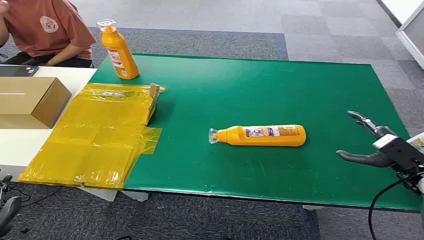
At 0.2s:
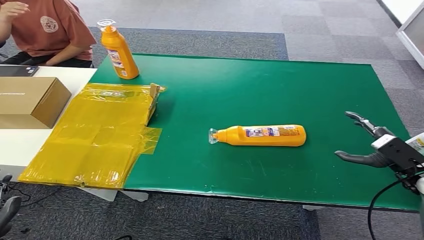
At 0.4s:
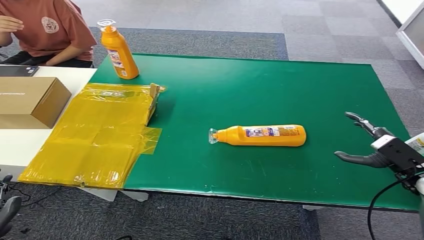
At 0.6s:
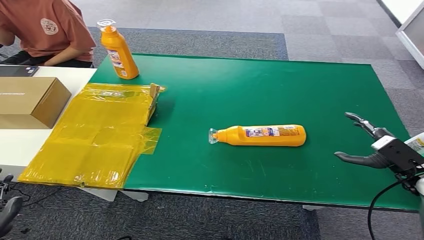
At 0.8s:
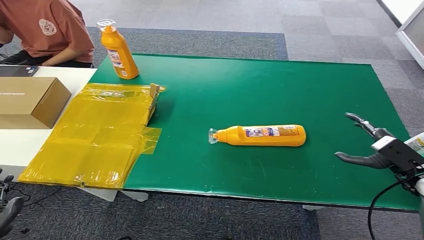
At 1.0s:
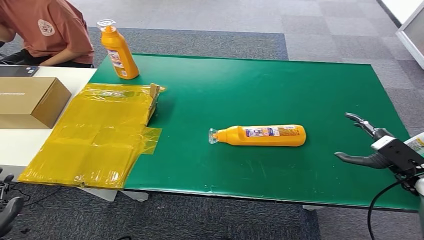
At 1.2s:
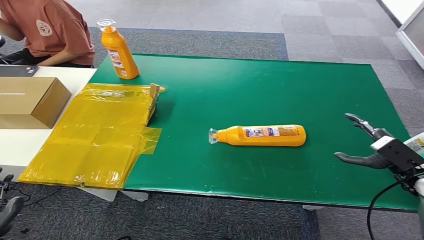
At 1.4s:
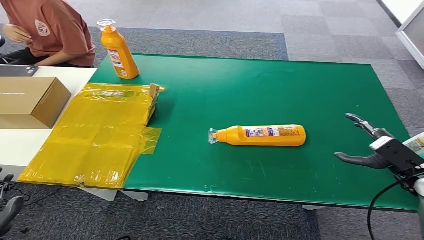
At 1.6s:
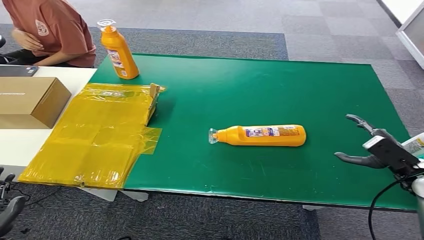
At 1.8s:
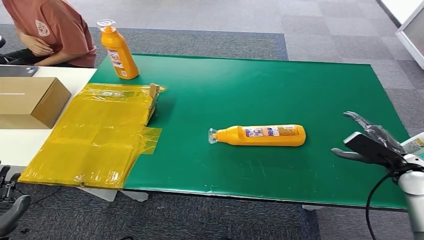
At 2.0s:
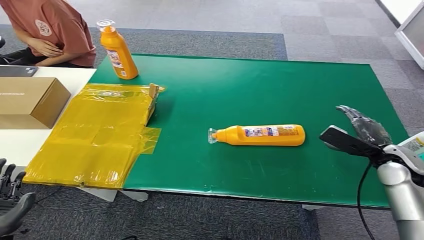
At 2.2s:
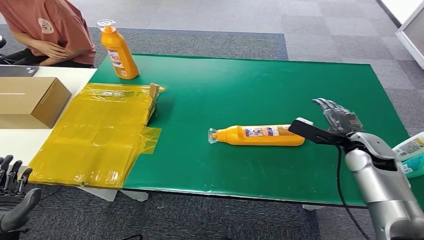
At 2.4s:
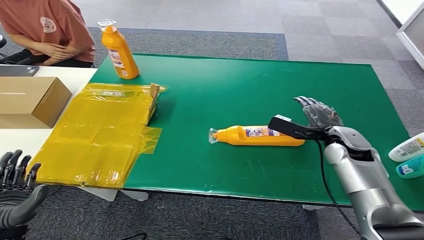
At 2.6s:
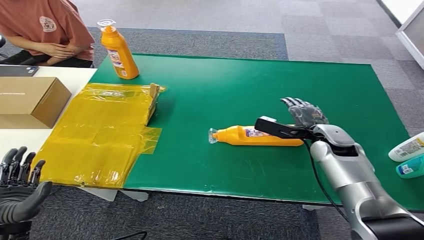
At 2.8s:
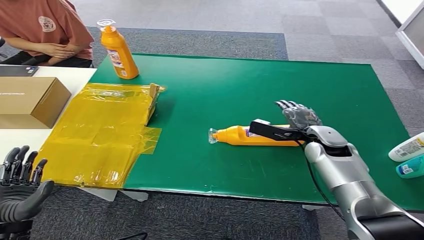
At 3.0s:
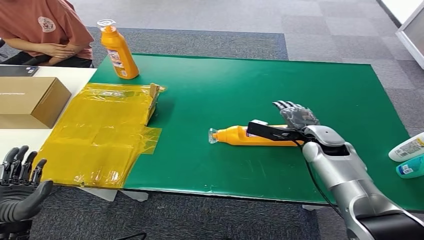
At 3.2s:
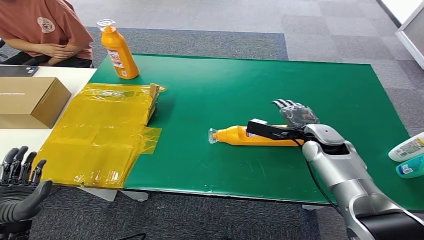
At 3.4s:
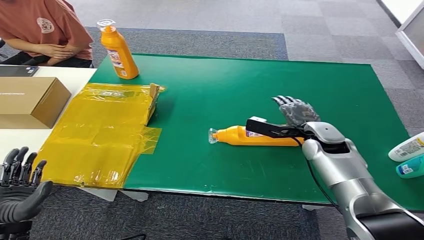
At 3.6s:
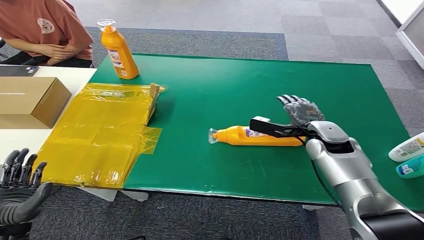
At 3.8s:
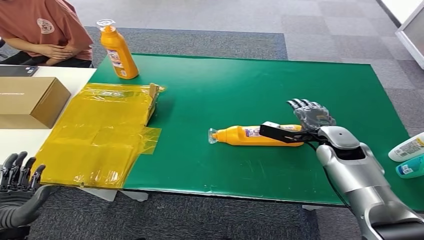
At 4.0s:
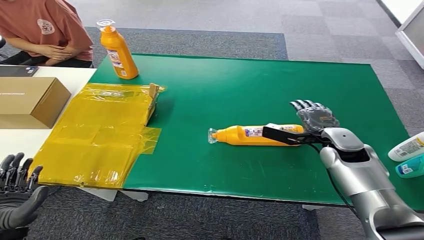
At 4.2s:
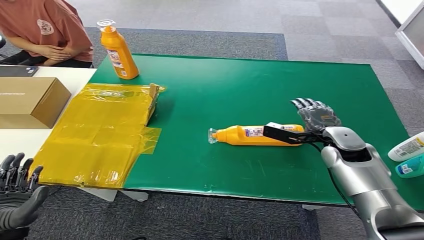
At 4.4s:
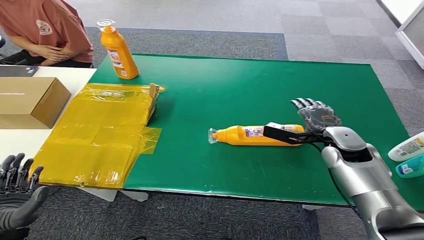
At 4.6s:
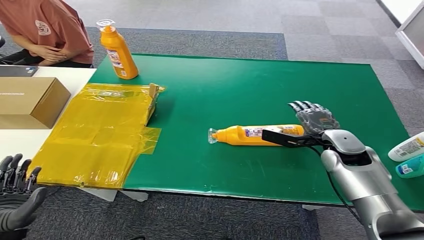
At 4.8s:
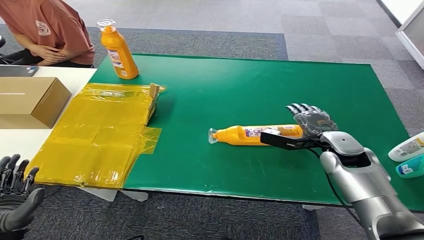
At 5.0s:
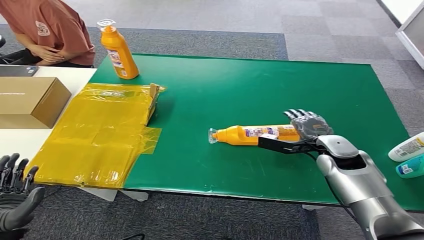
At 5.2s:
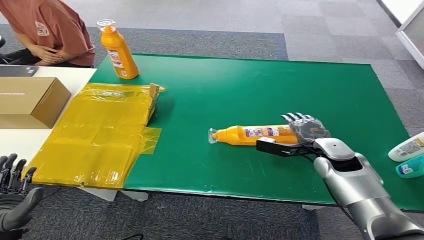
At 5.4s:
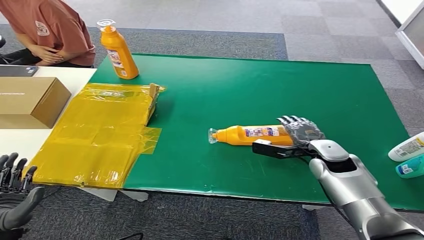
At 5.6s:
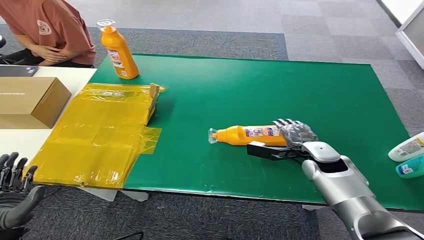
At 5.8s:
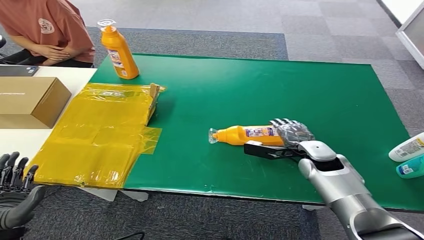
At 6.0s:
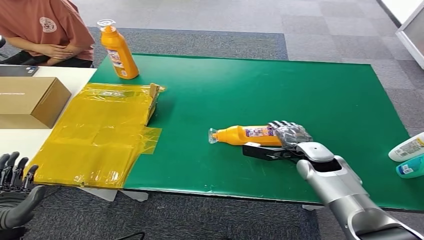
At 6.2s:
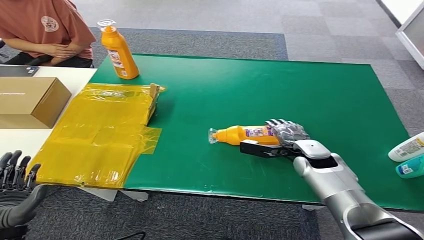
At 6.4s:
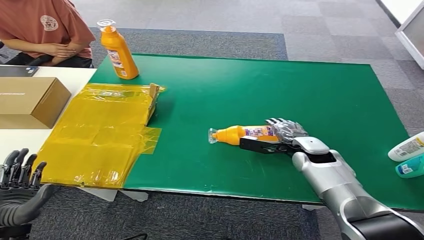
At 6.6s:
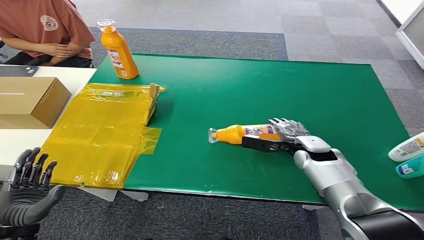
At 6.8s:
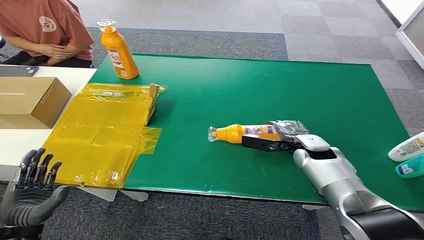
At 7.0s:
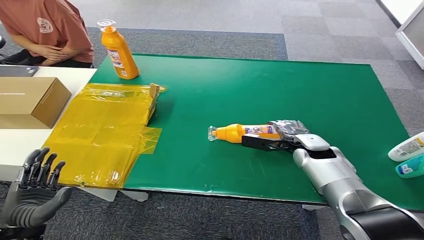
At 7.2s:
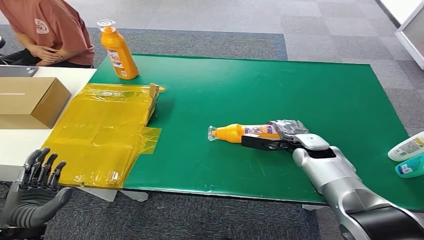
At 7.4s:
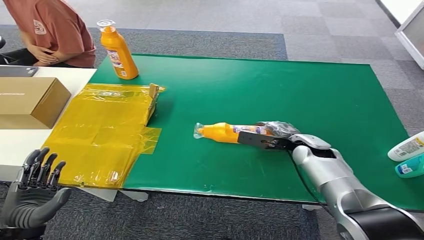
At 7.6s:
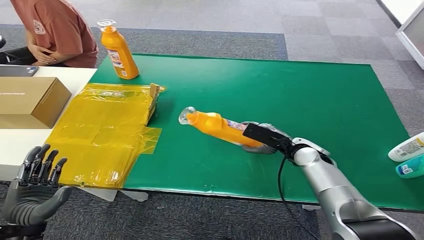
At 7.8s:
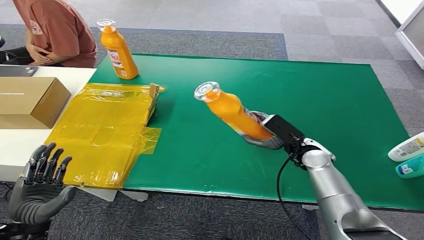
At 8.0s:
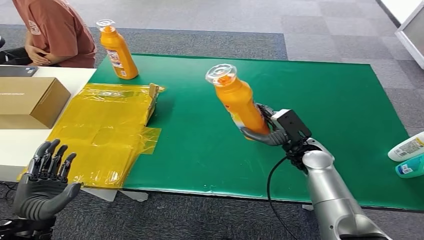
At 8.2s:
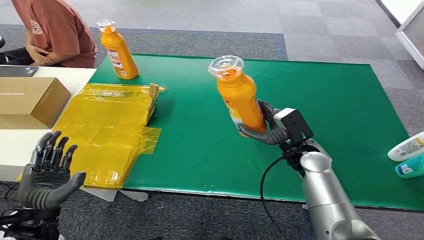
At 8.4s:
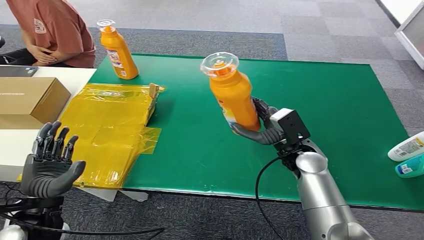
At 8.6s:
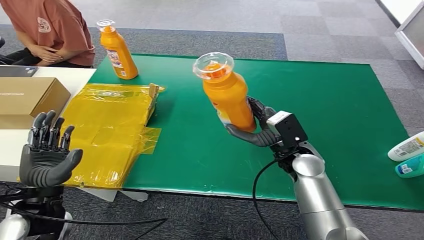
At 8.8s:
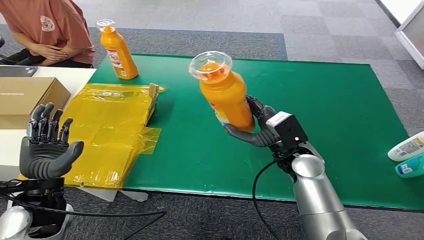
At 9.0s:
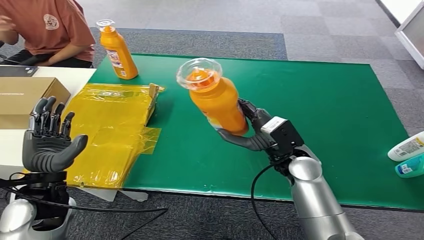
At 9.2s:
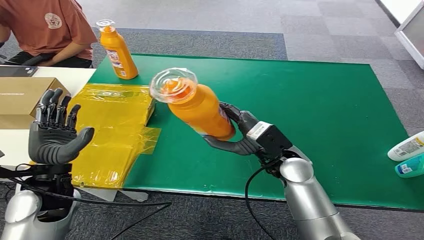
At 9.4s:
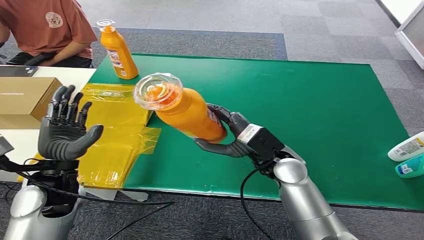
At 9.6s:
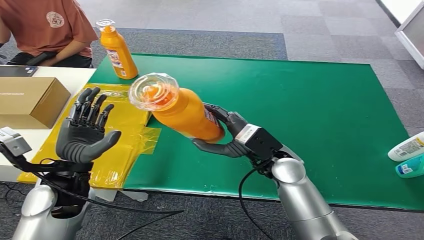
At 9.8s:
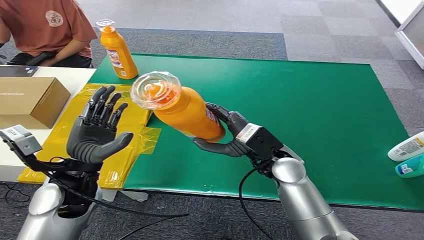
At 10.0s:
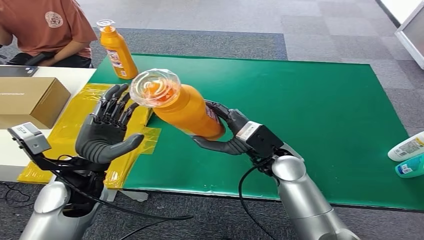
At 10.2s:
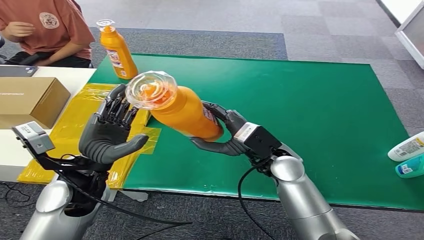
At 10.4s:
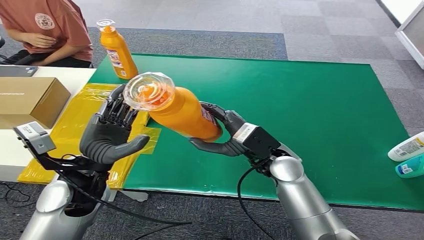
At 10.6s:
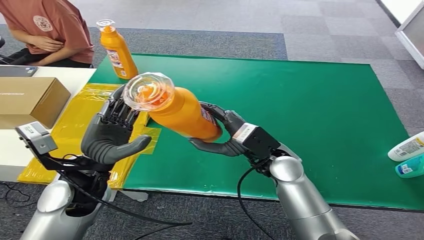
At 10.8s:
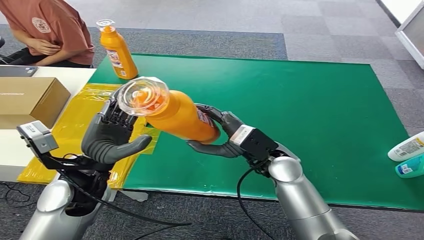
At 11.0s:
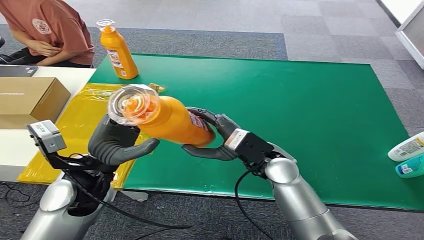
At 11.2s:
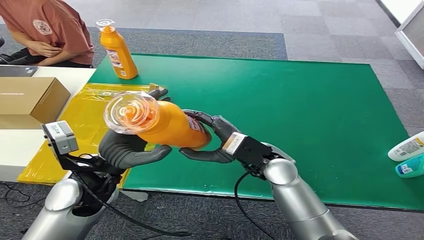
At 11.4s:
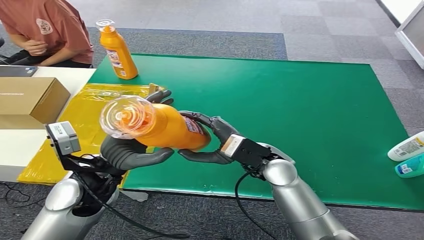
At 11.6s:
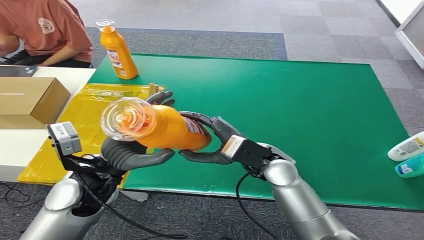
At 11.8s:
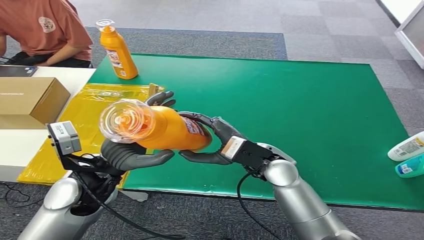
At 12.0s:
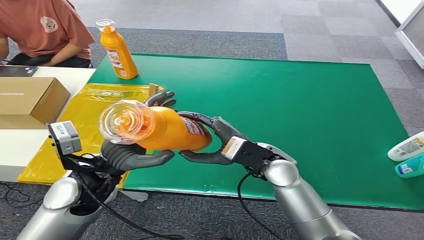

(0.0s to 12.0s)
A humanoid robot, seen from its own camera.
Step, 0.0s - 7.8s: Pick up the bottle from the table.
1.6s - 3.0s: The left hand changes place by some 5 cm. The right hand is displaced to the left and forward by some 20 cm.
3.0s - 4.4s: There are only small adjustments of the hands.
4.4s - 6.0s: The right hand travels downward by approximately 5 cm.
10.4s - 12.0s: There are only small adjustments of the hands.

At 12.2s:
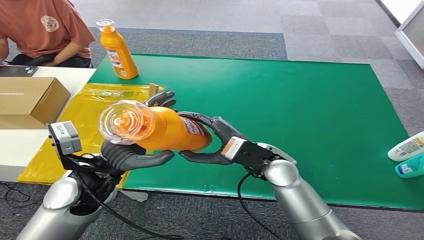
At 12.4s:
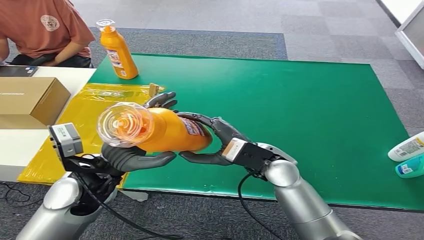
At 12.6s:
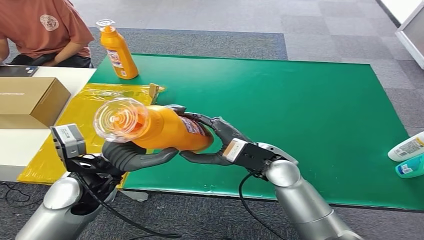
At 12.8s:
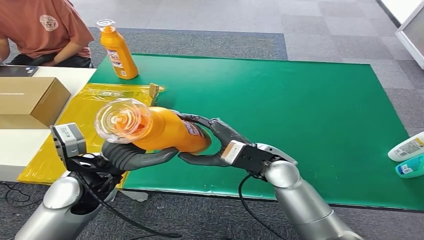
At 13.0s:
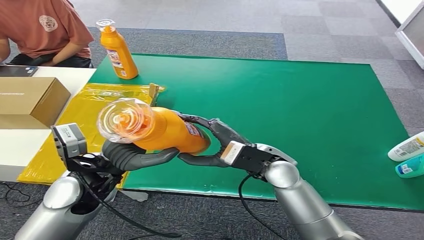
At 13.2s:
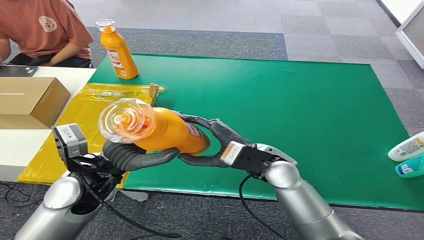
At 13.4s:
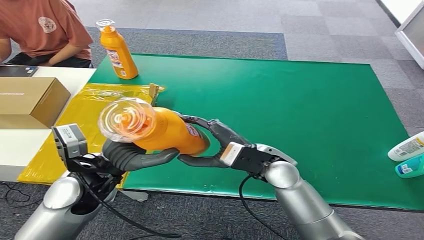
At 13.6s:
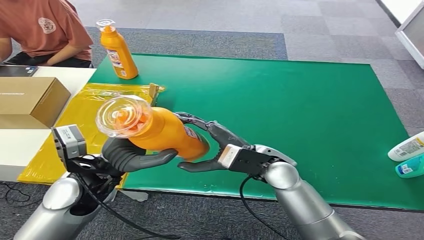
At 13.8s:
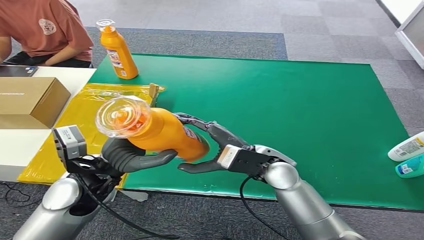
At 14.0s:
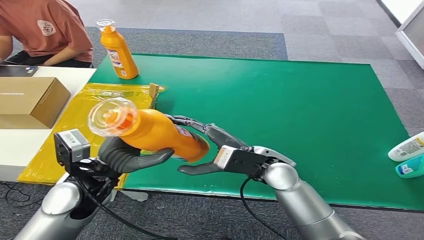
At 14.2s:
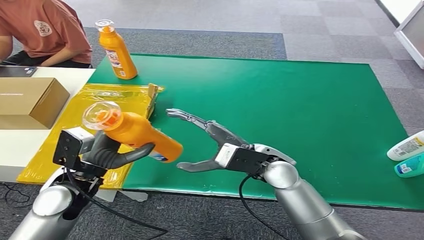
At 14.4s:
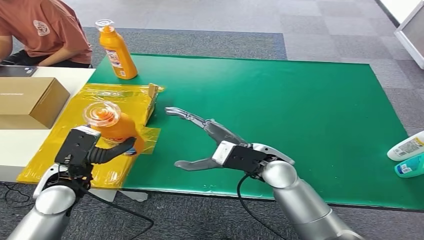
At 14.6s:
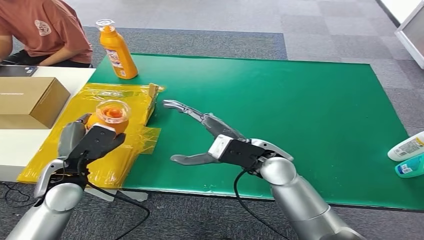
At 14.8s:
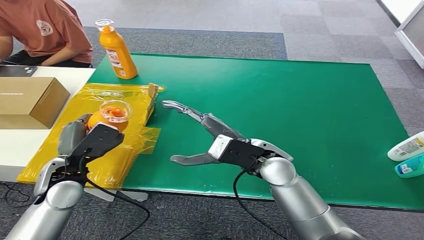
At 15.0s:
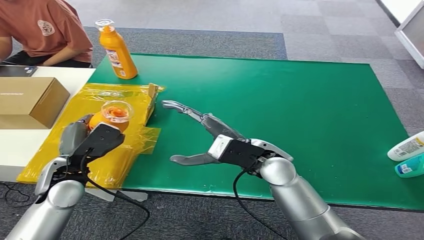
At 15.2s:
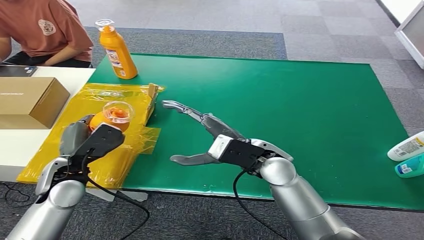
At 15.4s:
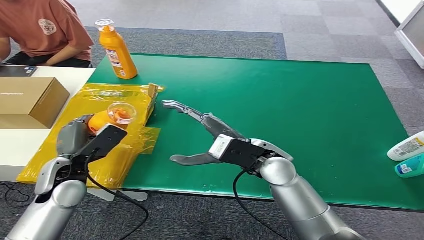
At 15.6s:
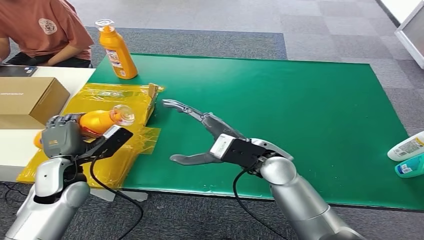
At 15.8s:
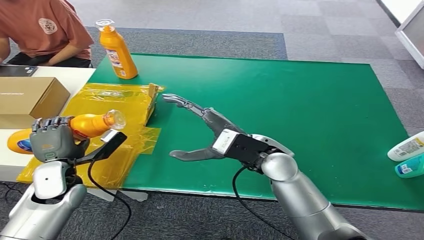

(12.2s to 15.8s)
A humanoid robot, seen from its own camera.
Step, 12.2s - 15.8s: Turn the bottle to the front side.
12.2s - 14.0s: The hands stay close to where they were, moving slightly.
14.0s - 15.8s: The left hand is displaced to the left and downward by roughly 15 cm.

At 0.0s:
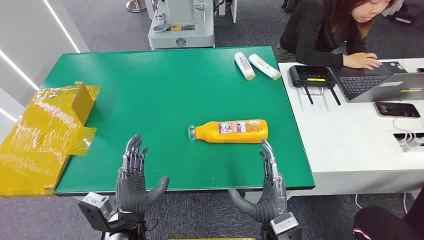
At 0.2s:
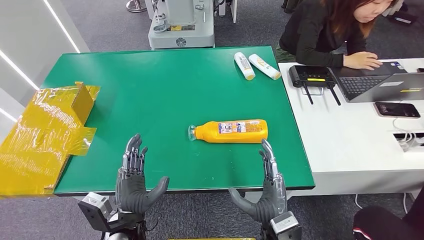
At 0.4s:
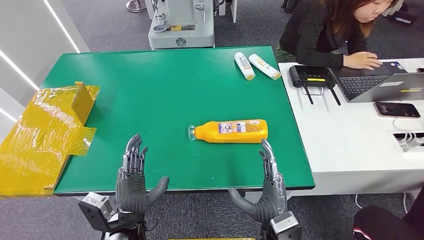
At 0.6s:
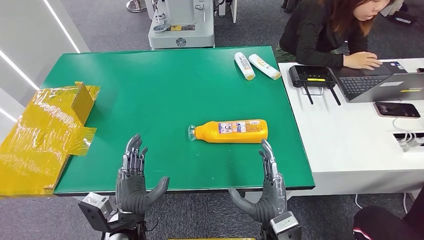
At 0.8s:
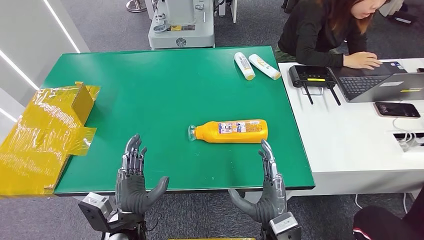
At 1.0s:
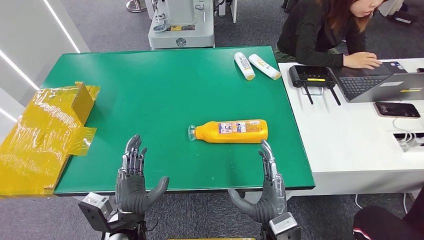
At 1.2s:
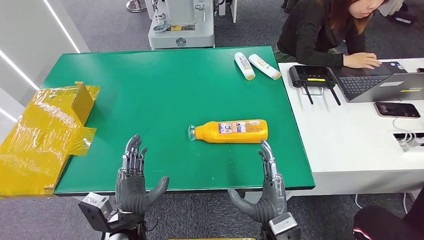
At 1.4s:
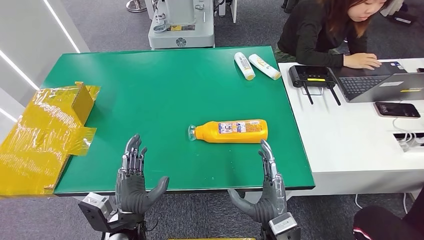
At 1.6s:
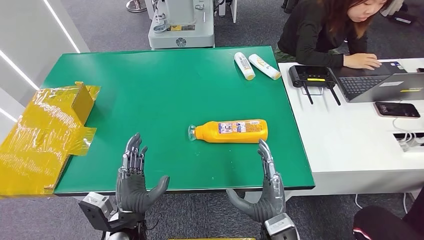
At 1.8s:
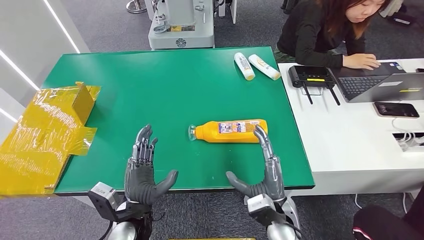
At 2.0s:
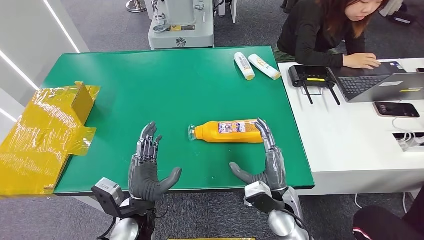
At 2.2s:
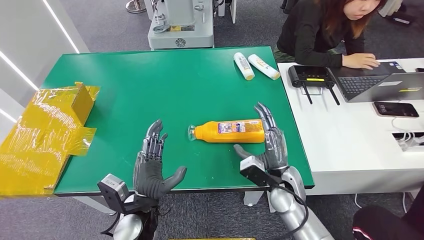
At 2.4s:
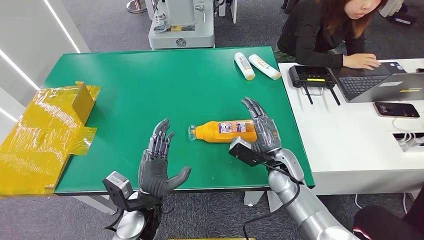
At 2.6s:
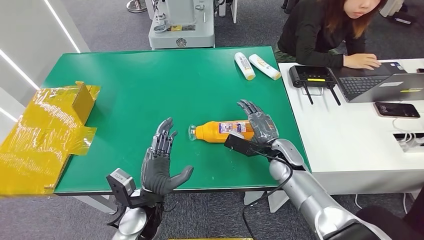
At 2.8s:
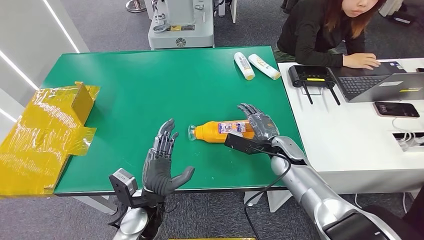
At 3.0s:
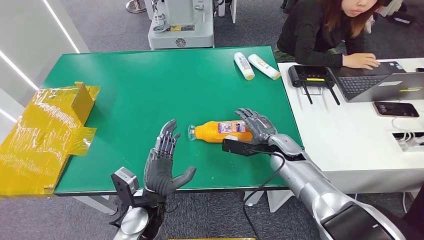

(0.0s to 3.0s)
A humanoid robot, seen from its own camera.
1.6s - 3.0s: The right hand is displaced forward by roughly 20 cm. Meanwhile the left hand moves roughly 5 cm.
